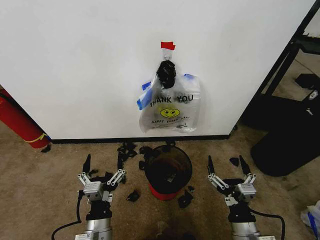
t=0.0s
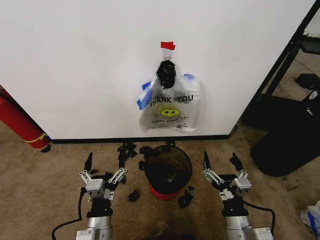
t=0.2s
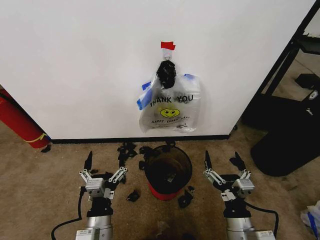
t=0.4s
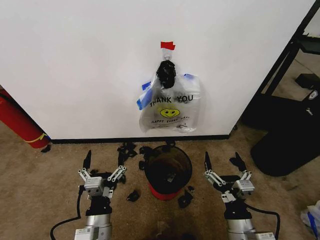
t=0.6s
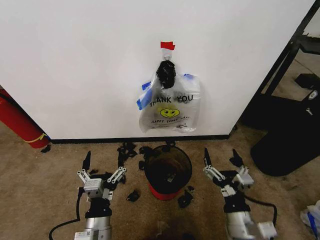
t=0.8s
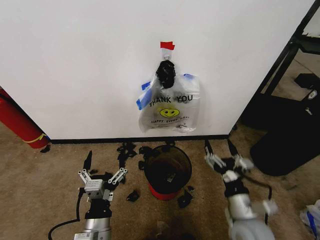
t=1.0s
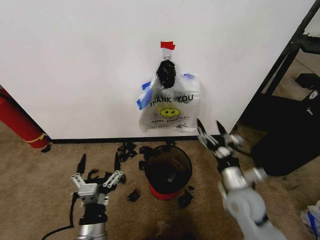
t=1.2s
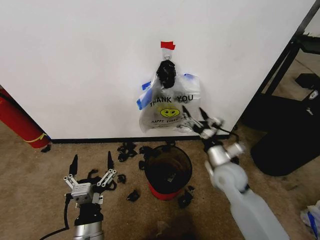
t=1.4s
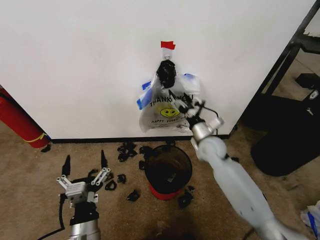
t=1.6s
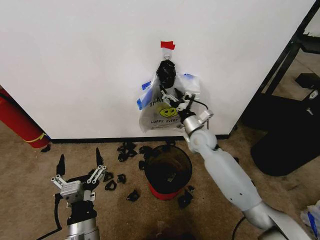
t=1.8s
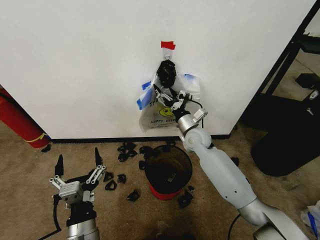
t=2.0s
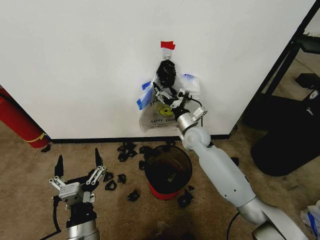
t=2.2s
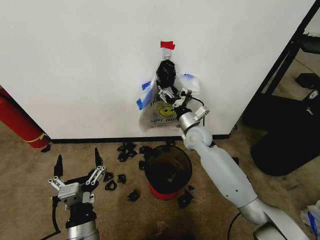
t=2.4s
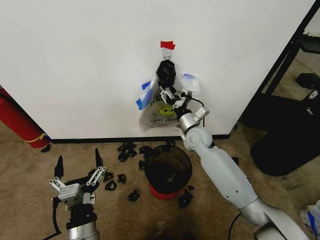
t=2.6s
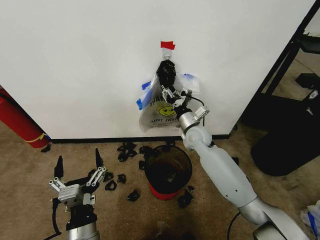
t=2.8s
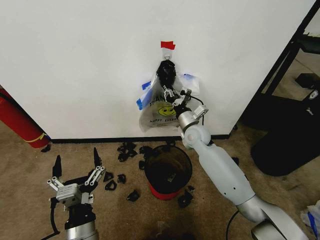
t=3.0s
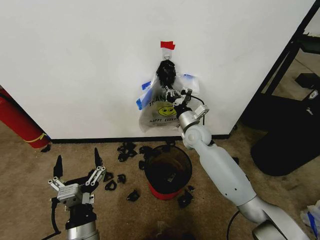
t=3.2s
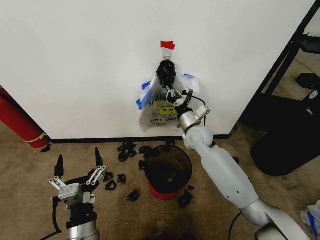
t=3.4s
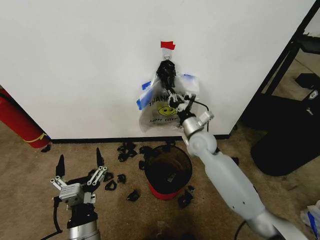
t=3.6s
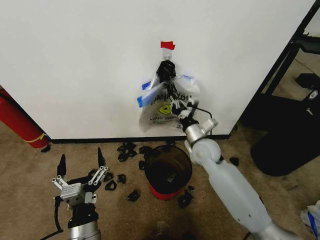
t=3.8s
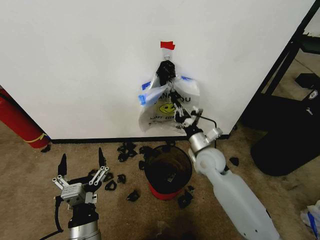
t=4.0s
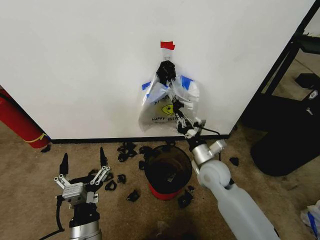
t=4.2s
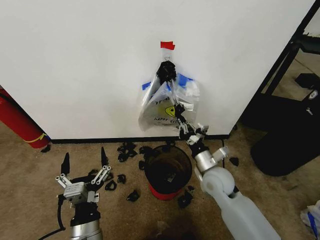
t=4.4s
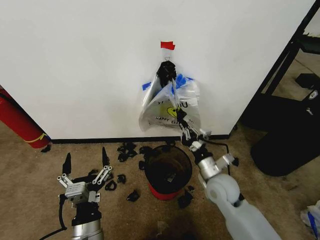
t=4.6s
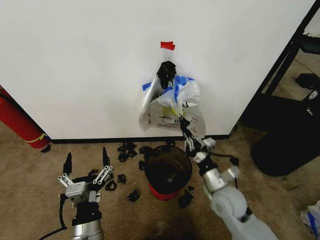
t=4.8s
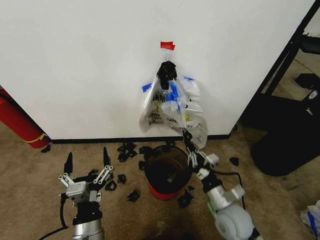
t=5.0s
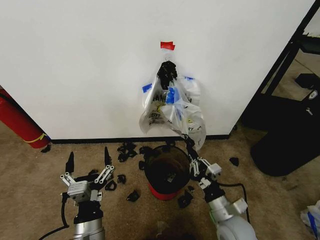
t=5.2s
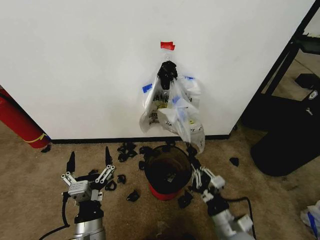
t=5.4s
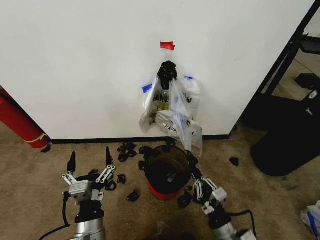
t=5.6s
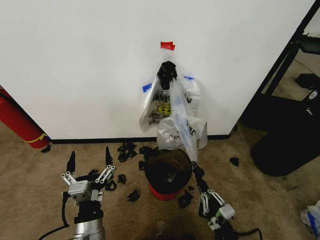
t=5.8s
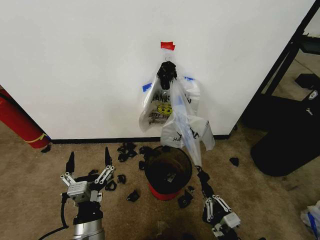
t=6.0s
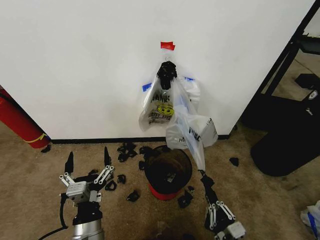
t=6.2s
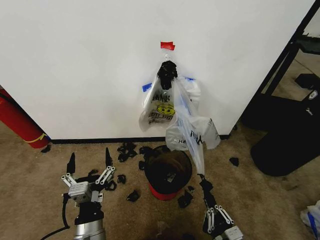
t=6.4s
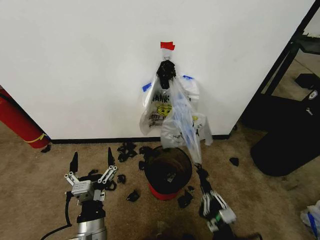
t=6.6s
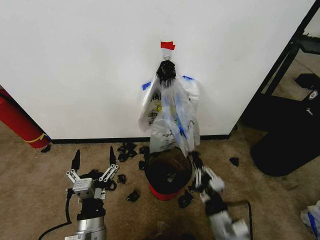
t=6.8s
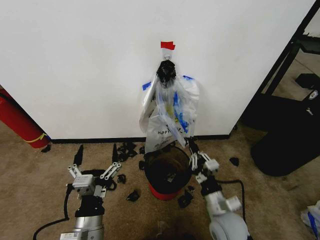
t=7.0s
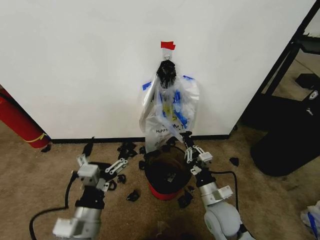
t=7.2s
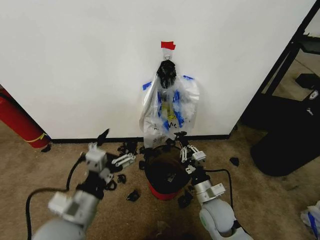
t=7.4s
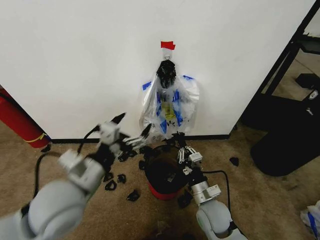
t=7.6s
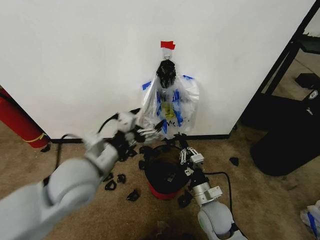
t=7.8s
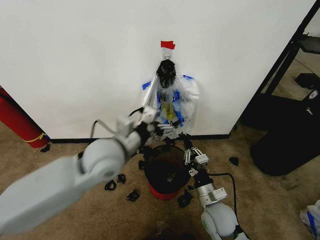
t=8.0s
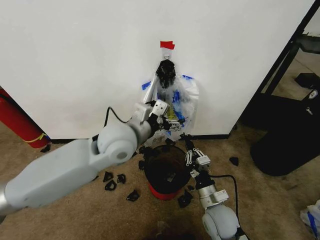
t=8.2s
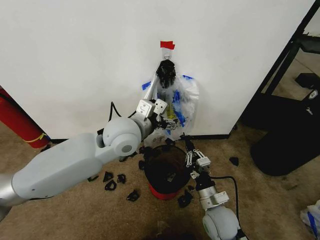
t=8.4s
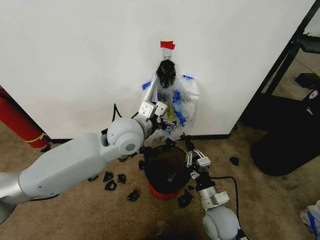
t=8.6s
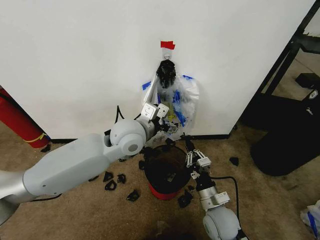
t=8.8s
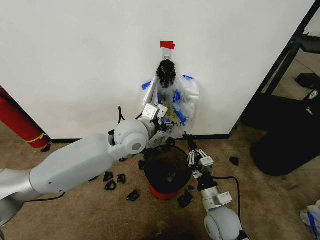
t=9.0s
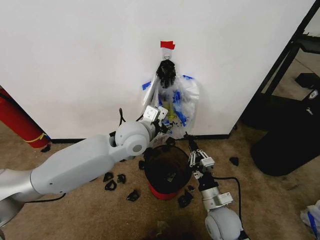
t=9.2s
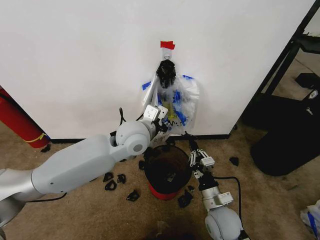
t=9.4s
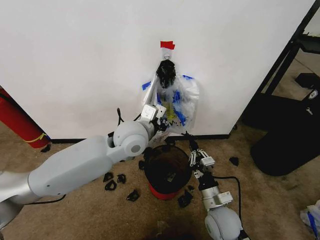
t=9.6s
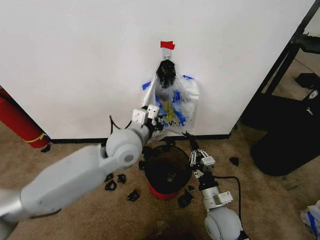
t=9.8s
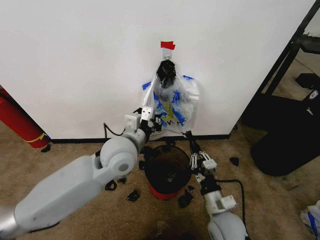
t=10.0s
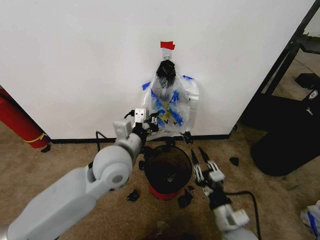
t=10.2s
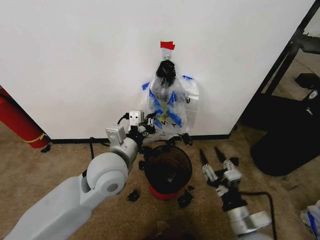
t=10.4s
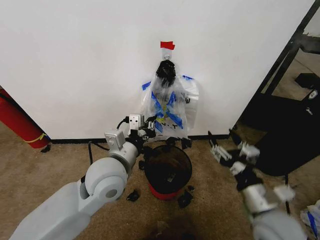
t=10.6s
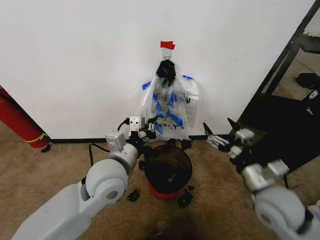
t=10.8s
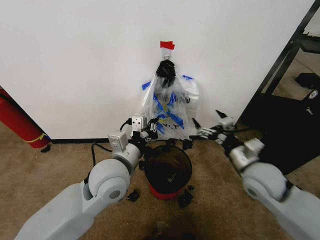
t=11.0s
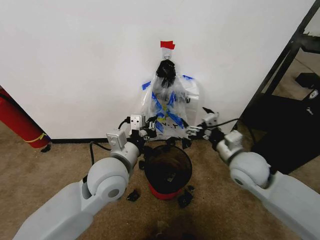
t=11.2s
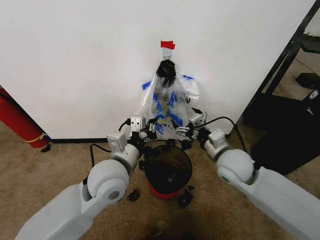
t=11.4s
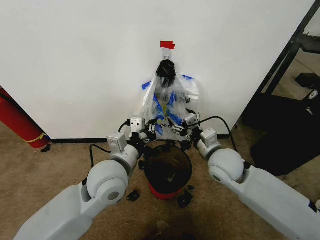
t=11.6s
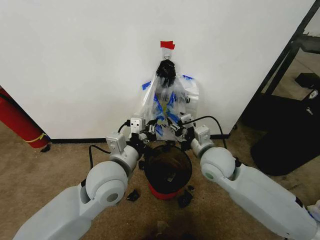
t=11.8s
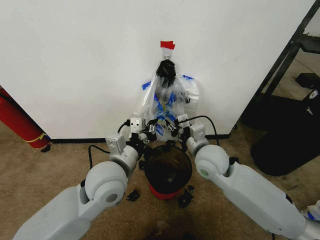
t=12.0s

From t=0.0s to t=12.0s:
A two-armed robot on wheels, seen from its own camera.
Task of the whole recording: Pick up the garbage bag from the wall and place it over the trash bin.
From t=1.6s to t=3.0s: The right gripper travels forward and to the left by about 10 cm, and closes up.
From t=3.0s to t=4.4s: The right gripper is displaced backward by about 15 cm.
From t=4.4s to t=6.0s: The right gripper goes some 25 cm backward.
From t=6.0s to t=7.6s: The right gripper goes some 15 cm forward. Meanwhile the left gripper is displaced upward and forward by about 15 cm.
From t=7.6s to t=9.0s: The left gripper is displaced forward and to the right by approximately 20 cm.
From t=9.0s to t=10.4s: Both grippers travel together backward, some 10 cm. The right gripper opens up, while the left gripper closes.
From t=10.4s to t=12.0s: The right gripper travels forward and upward by about 25 cm, and opens and closes again.

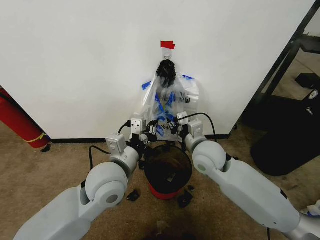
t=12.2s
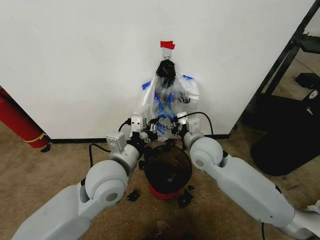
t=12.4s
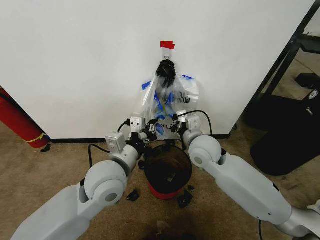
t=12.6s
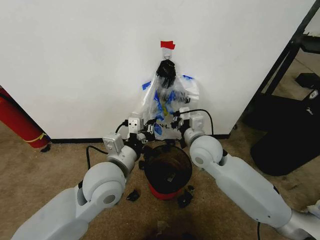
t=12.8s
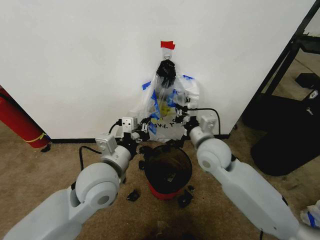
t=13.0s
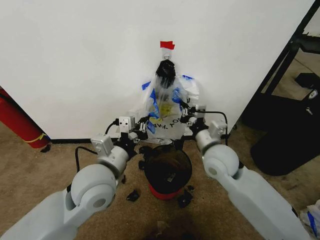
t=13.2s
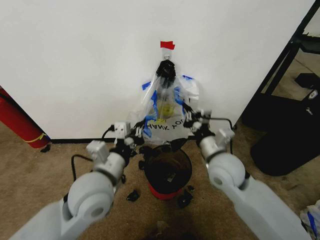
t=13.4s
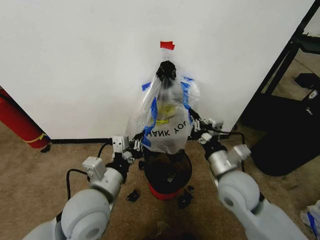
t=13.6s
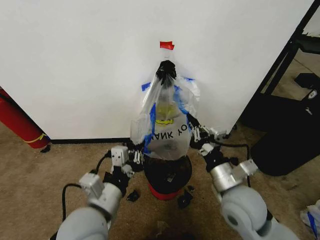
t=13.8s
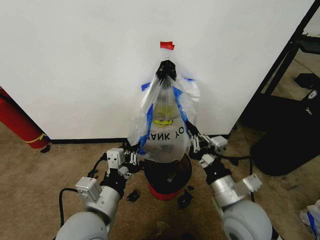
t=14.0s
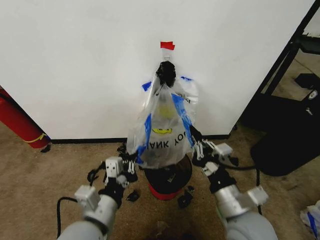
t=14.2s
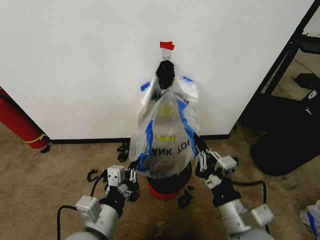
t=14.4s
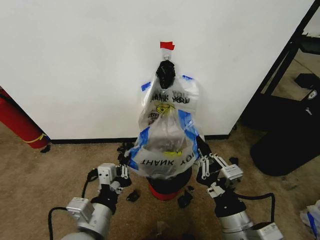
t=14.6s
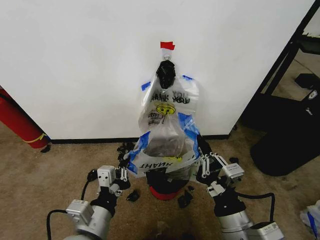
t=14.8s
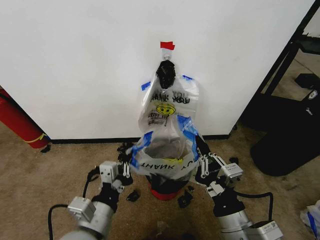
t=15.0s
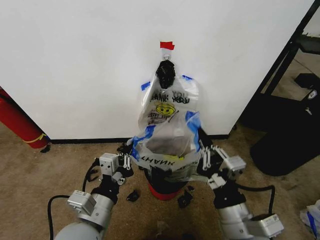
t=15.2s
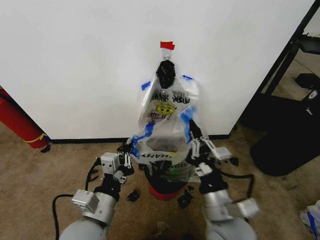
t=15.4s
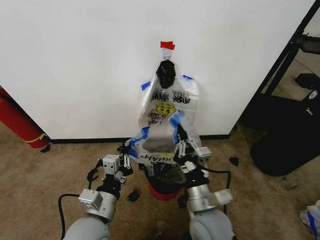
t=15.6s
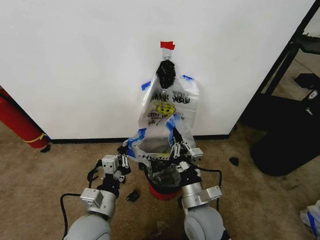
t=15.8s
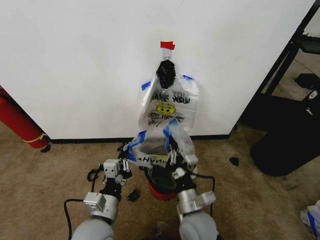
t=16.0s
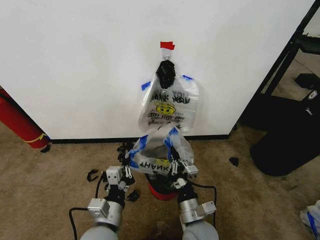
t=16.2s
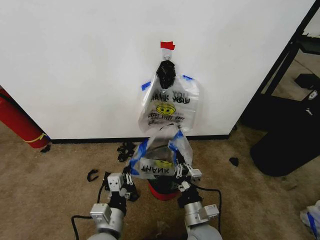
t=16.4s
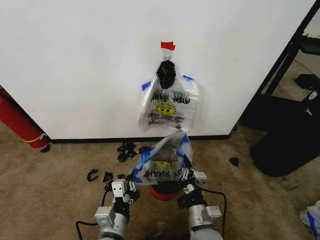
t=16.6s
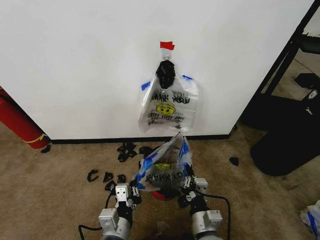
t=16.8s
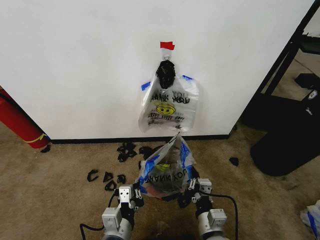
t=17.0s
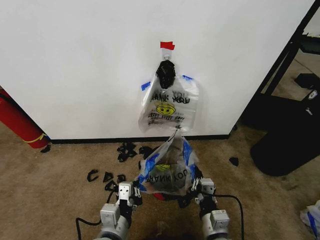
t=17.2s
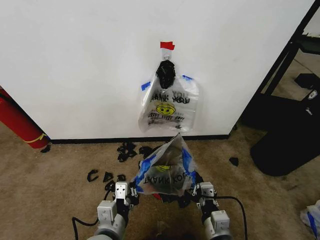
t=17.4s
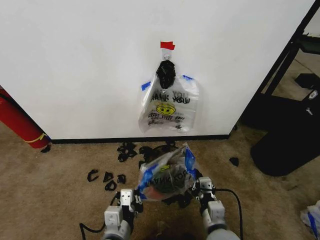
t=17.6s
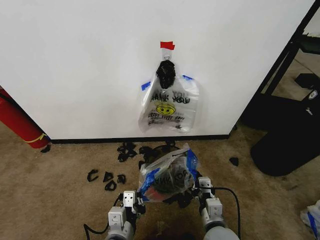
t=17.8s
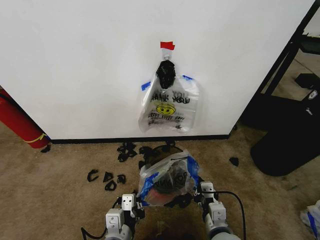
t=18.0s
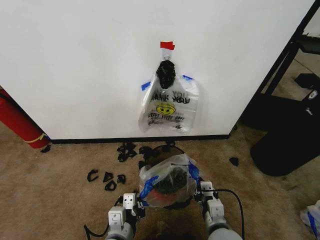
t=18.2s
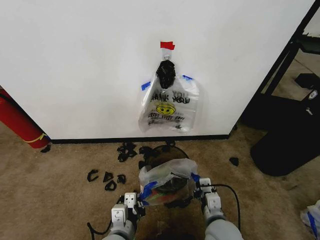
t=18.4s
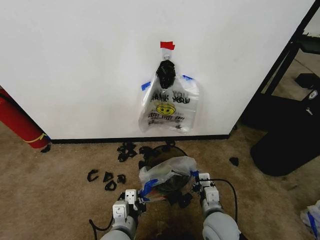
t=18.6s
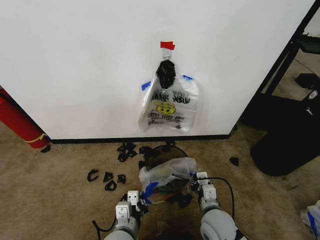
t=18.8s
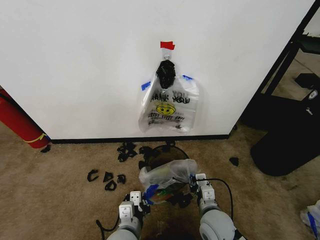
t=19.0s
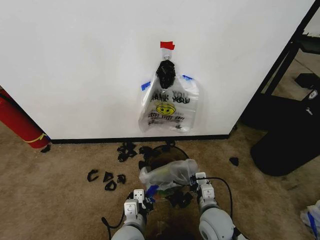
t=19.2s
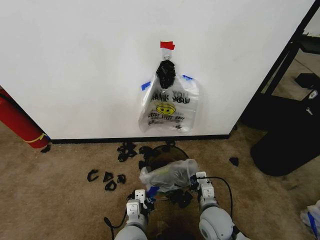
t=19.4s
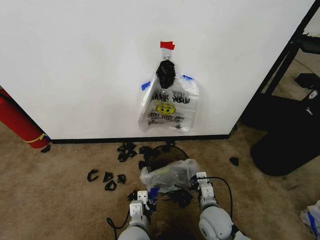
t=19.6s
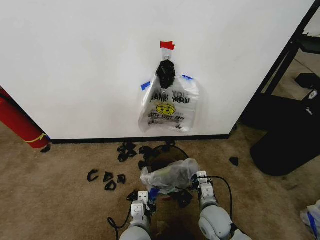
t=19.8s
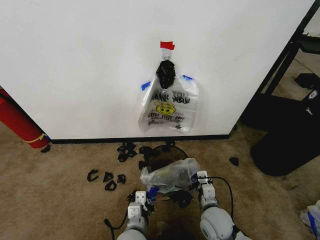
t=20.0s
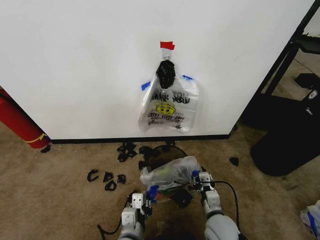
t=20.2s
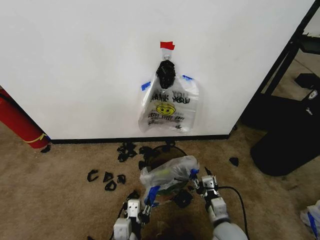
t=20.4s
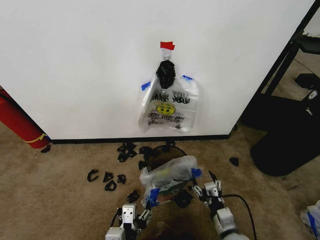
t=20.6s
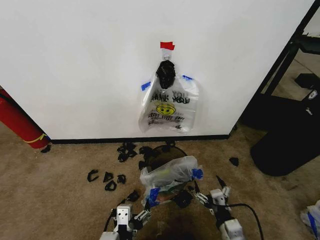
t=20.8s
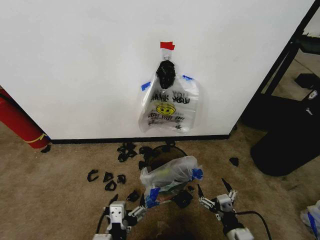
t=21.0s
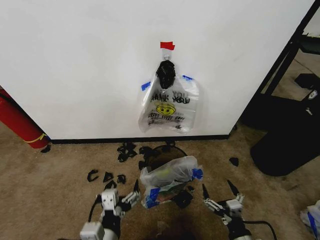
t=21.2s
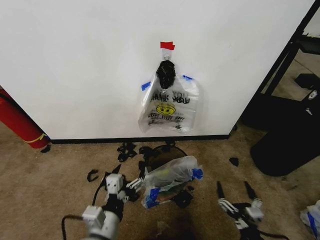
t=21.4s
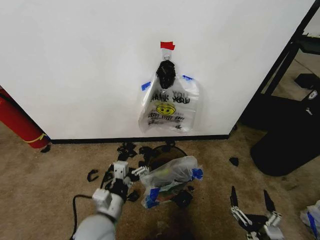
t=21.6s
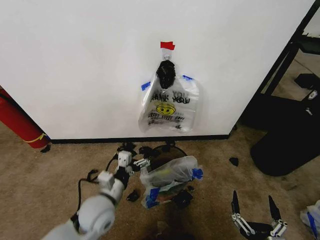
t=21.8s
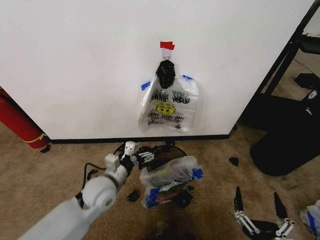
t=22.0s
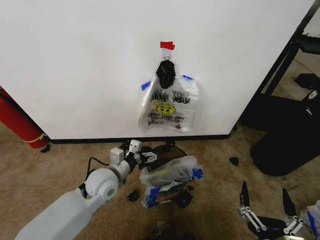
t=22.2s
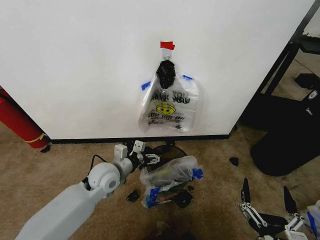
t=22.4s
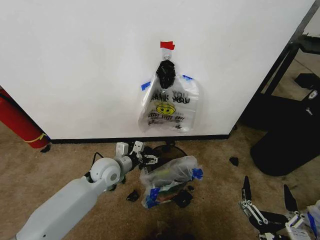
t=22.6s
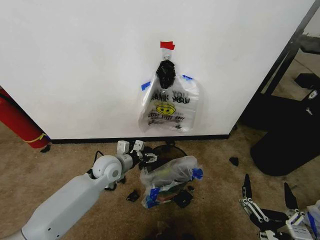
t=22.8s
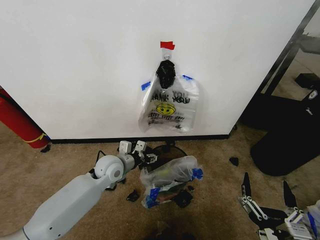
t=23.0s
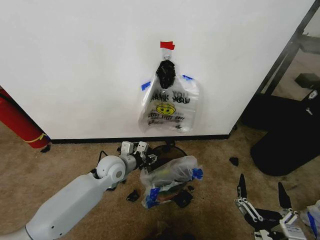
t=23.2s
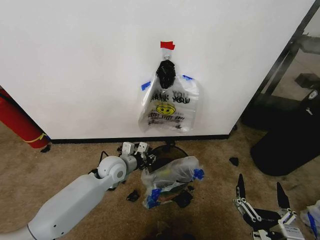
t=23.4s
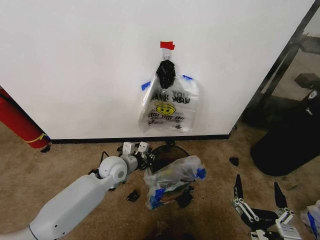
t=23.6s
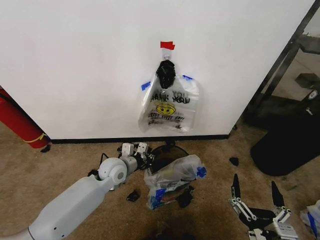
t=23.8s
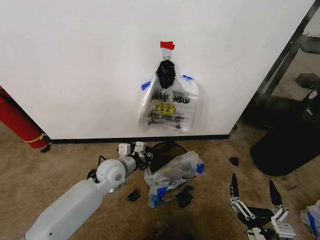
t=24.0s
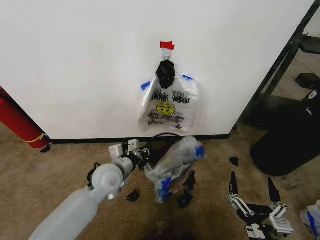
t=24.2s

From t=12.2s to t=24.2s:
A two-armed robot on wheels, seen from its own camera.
Task of the whole recording: Pick up the garbage bag from the wall and place it over the trash bin.
From t=12.2s to t=13.8s: The left gripper travels backward by some 10 cm, while the right gripper is displaced backward and to the right by about 15 cm, and closes up.
From t=13.8s to t=15.2s: The right gripper shifts roughly 10 cm backward.
From t=15.2s to t=16.6s: The left gripper heads downward, covering approximately 10 cm; the right gripper travels downward by approximately 15 cm.
From t=16.6s to t=18.2s: The right gripper shifts by roughly 5 cm.
From t=18.2s to t=19.8s: The right gripper travels forward and downward by about 10 cm. The left gripper travels downward and to the right by some 10 cm.
From t=19.8s to t=21.2s: The left gripper travels upward, backward and to the left by roughly 15 cm, and opens its fingers. Meanwhile the right gripper heads backward and to the right, covering approximately 15 cm, and opens.
From t=21.2s to t=22.6s: The right gripper shifts approximately 10 cm upward and backward. Meanwhile the left gripper is displaced forward by some 25 cm.
From t=22.6s to t=24.2s: The left gripper closes.
